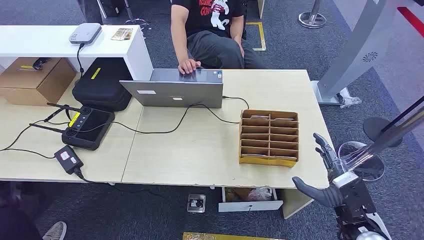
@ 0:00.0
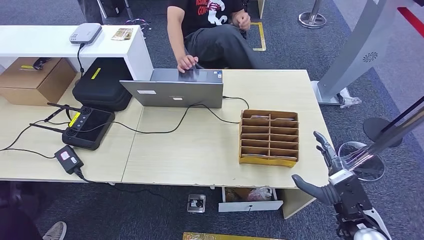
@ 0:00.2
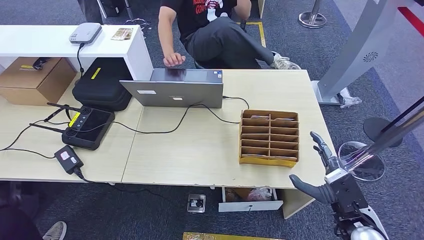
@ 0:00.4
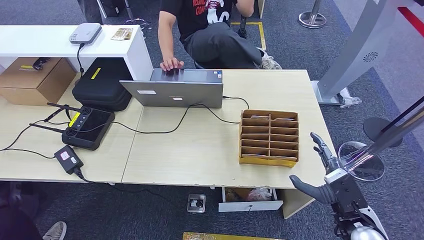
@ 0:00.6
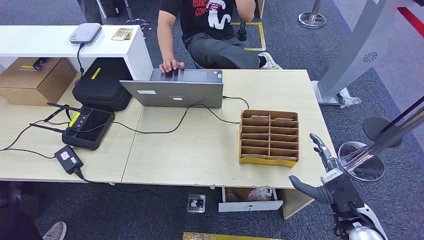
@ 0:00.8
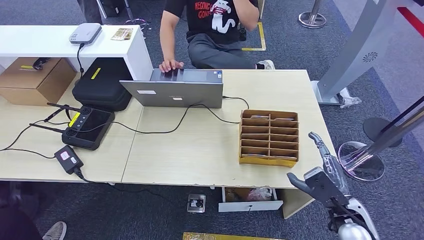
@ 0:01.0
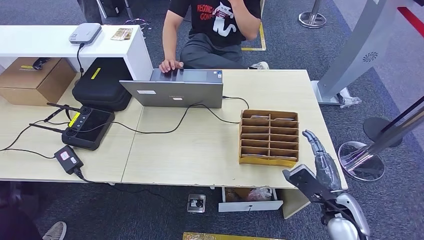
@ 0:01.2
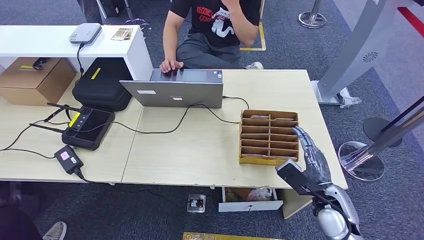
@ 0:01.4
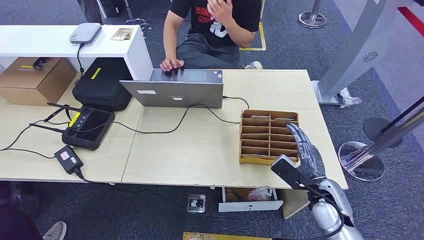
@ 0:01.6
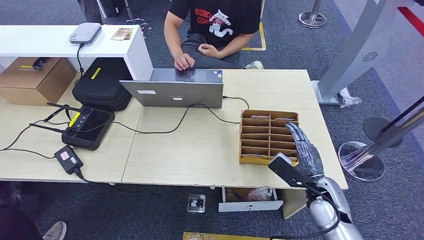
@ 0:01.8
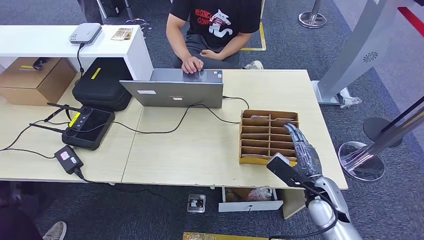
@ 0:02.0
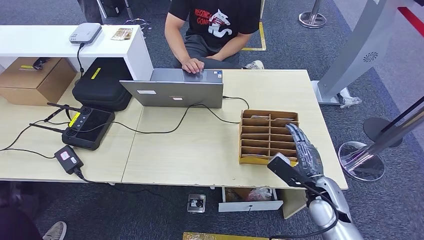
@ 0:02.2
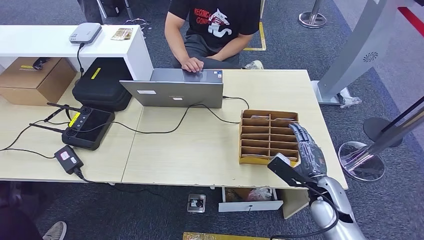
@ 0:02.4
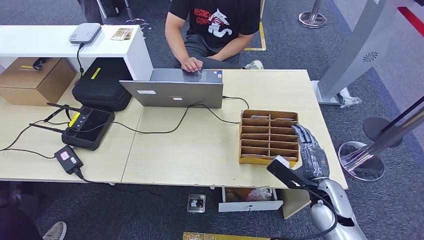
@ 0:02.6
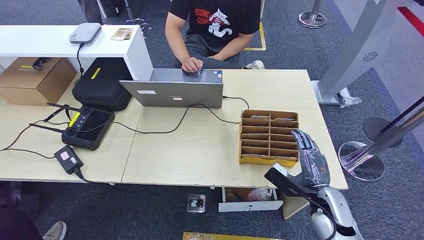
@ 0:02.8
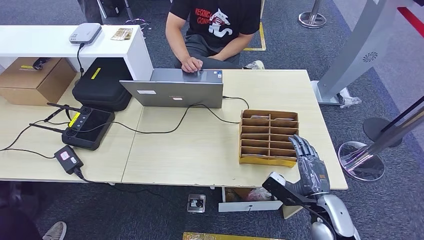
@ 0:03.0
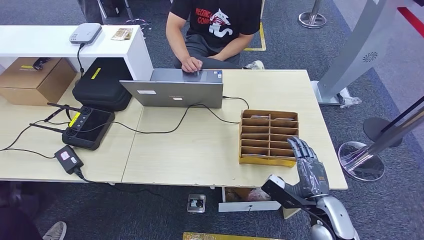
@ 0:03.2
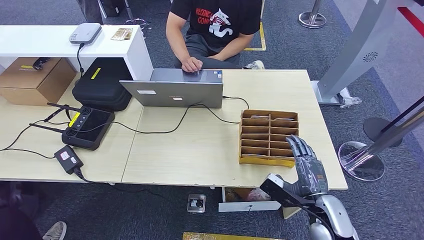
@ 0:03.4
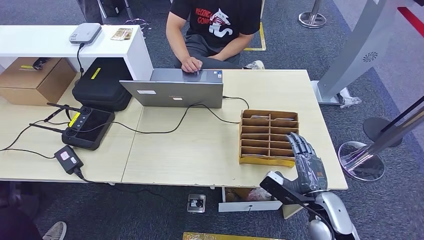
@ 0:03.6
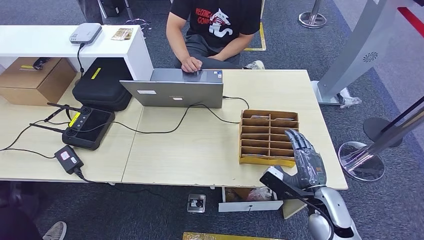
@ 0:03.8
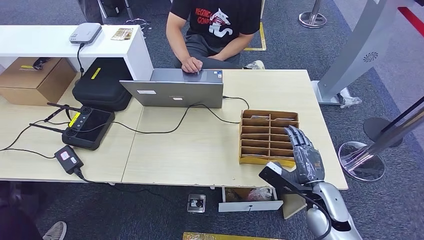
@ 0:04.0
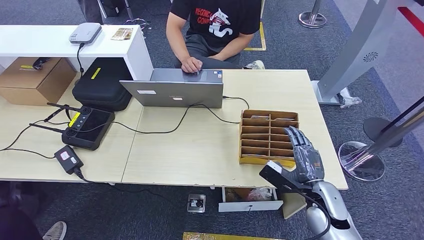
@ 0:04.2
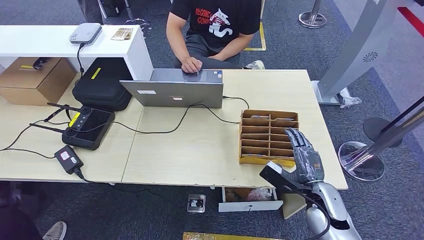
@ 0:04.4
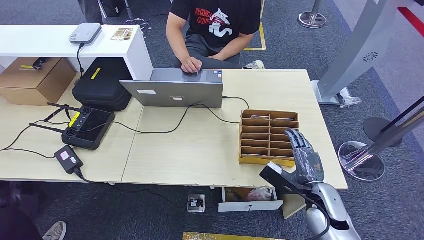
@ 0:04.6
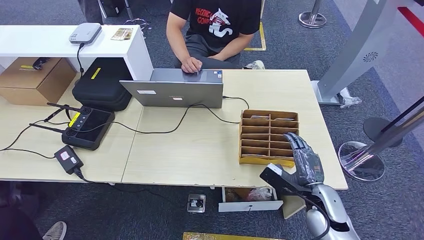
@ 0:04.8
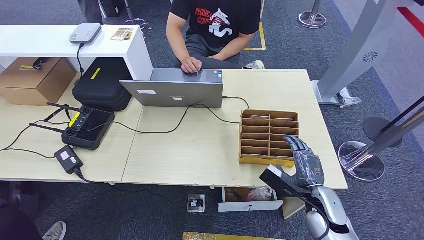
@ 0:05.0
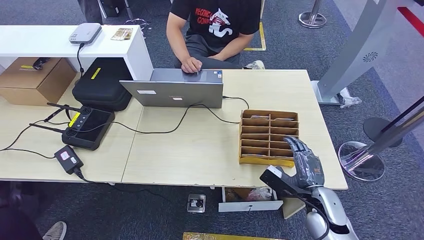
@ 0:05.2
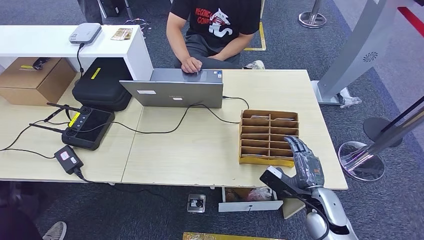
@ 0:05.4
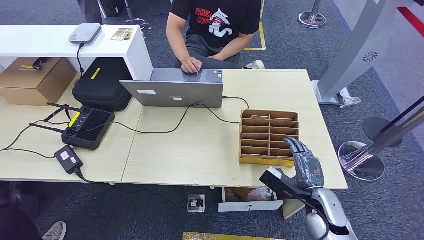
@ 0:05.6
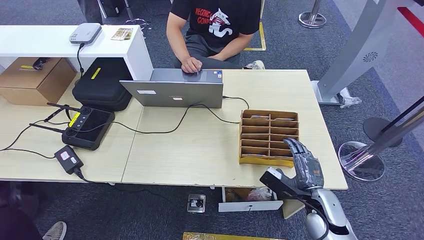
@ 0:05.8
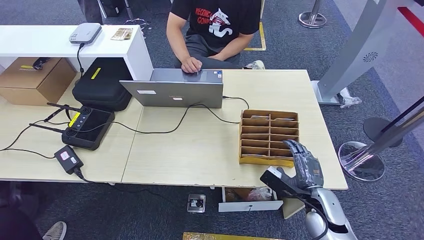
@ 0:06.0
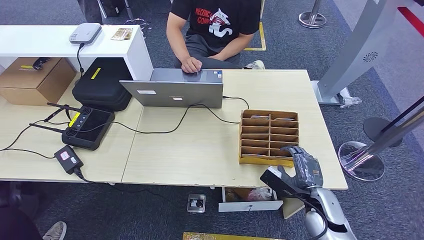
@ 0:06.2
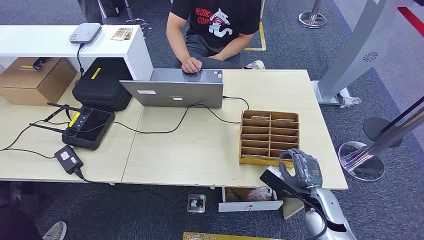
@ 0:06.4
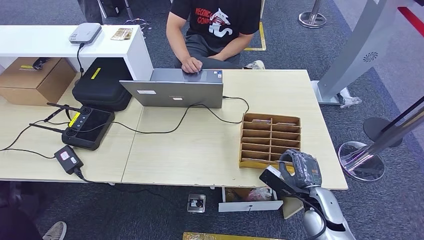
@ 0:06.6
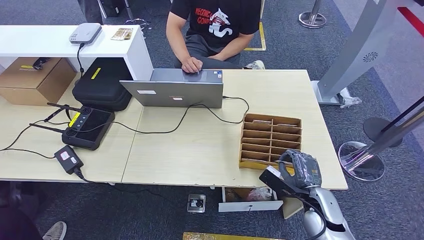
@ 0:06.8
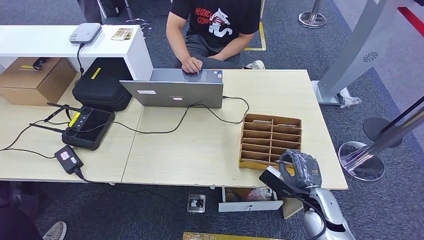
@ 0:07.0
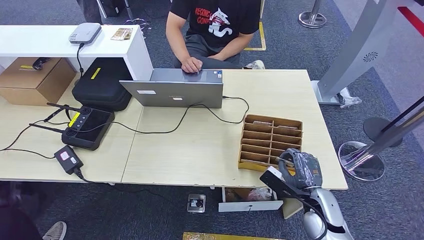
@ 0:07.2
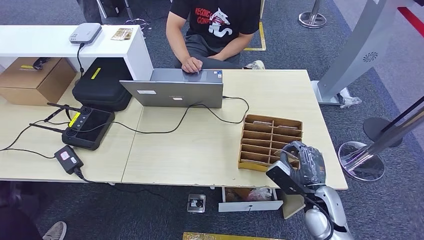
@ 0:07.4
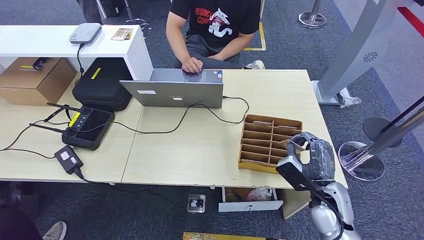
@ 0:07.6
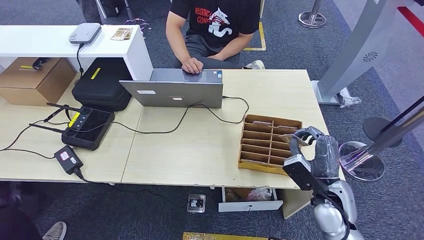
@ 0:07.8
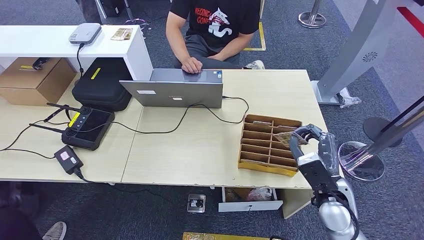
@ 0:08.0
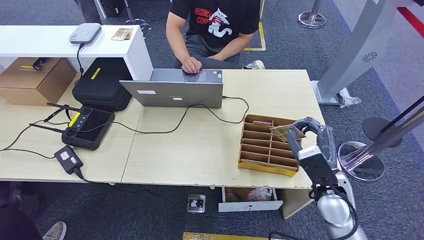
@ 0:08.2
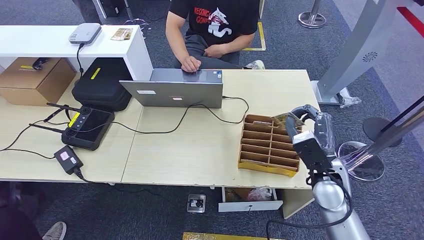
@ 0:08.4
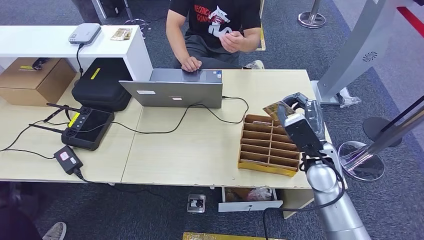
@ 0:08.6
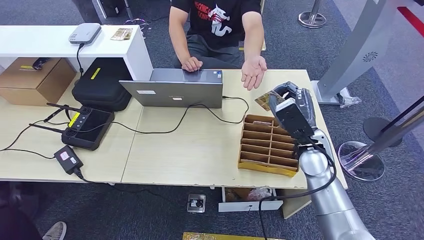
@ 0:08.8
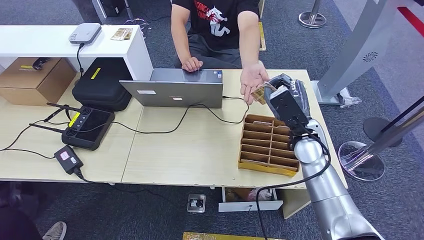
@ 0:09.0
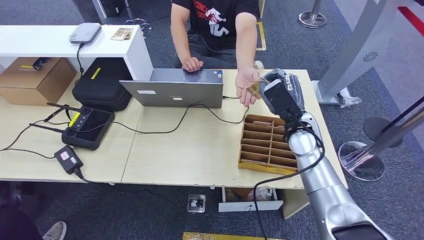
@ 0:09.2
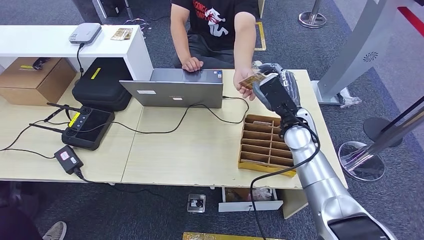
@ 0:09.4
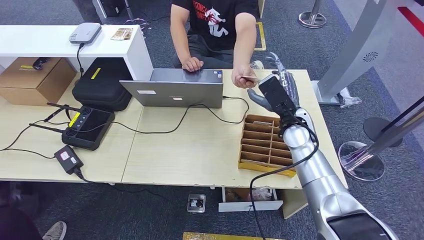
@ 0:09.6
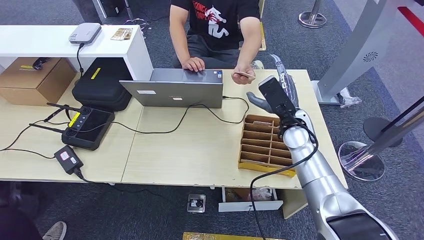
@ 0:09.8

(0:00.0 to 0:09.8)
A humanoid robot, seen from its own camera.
Step, 0:00.0 - 0:07.6: Pick up the room card from the card holder.
Step, 0:07.8 - 0:09.8: Hand the room card to the target.
0:01.4 - 0:02.8: The right hand goes approximately 5 cm backward.
0:02.8 - 0:05.6: The hands make only small movements.
0:05.6 - 0:07.0: The two hands keep their place.
0:07.0 - 0:08.4: The right hand travels upward and forward by roughly 15 cm.
0:08.4 - 0:09.8: The right hand heads forward, covering approximately 5 cm.
